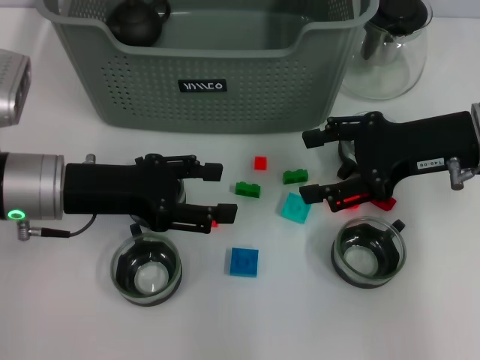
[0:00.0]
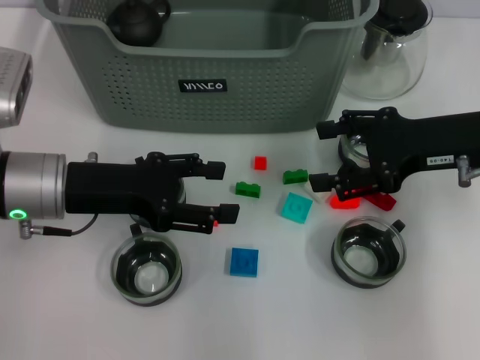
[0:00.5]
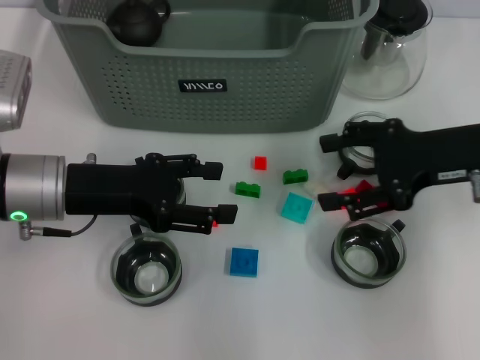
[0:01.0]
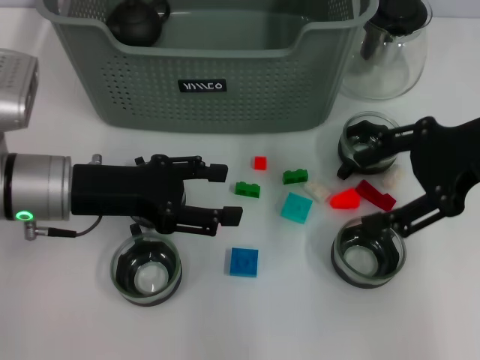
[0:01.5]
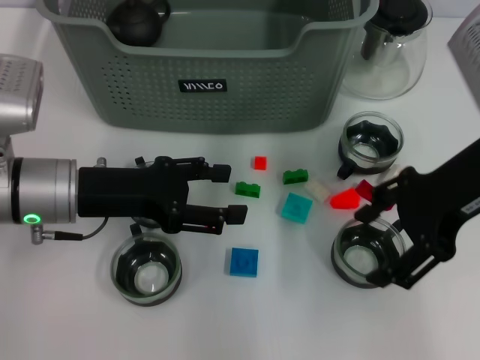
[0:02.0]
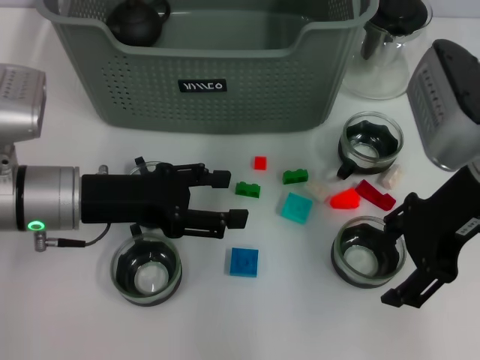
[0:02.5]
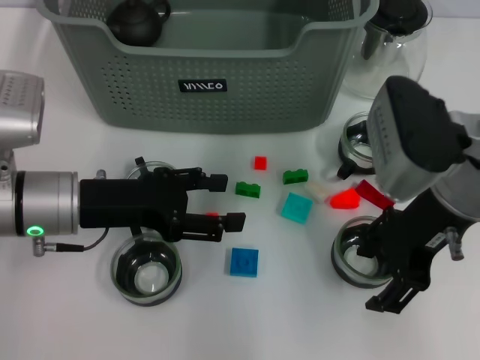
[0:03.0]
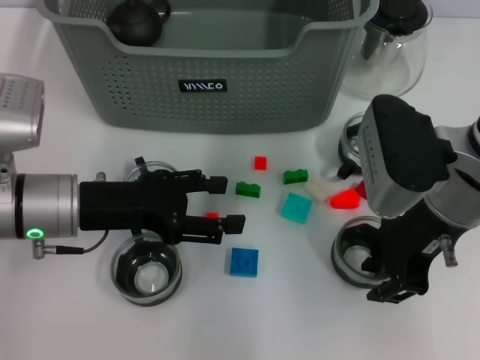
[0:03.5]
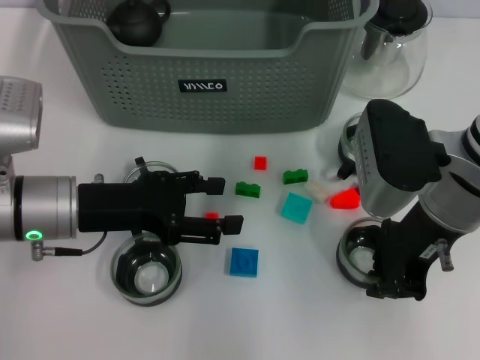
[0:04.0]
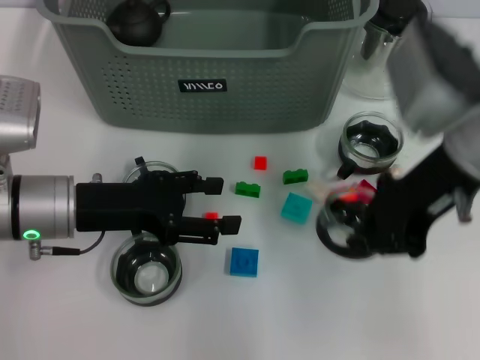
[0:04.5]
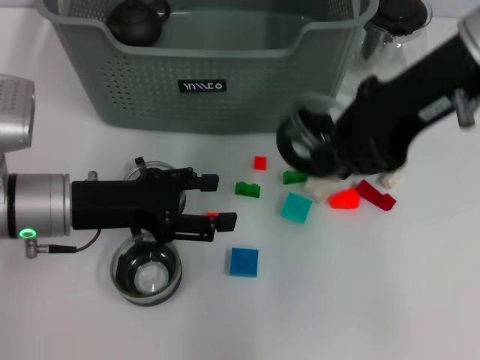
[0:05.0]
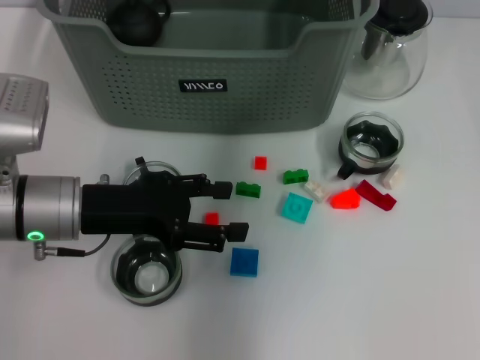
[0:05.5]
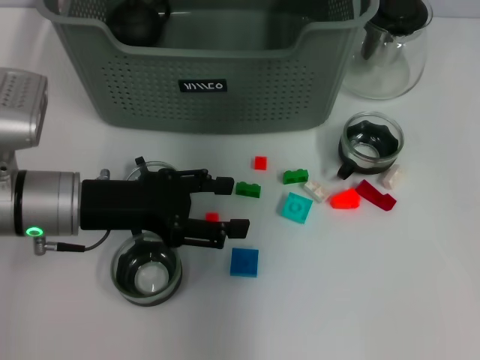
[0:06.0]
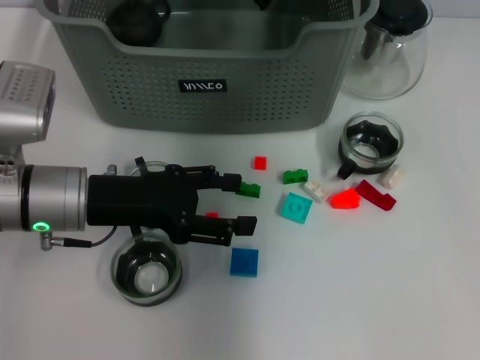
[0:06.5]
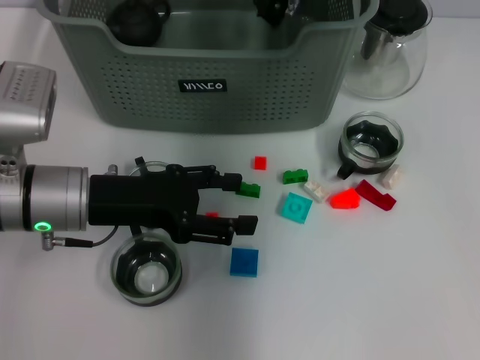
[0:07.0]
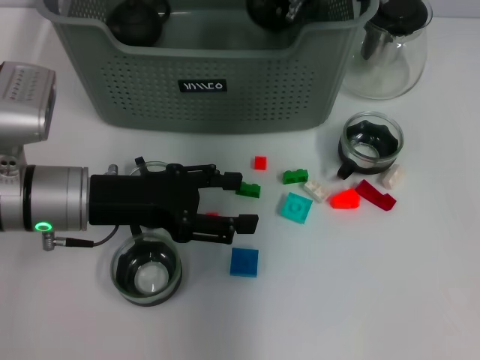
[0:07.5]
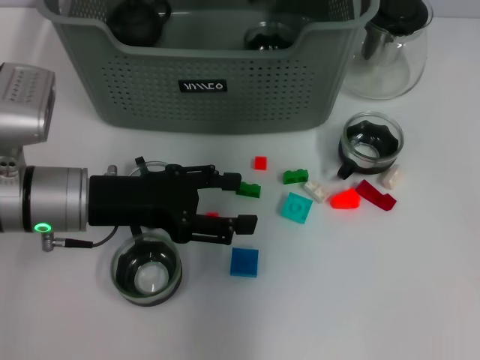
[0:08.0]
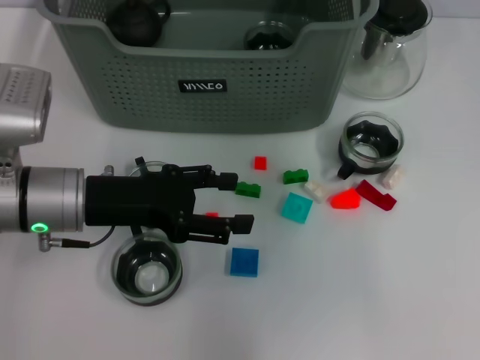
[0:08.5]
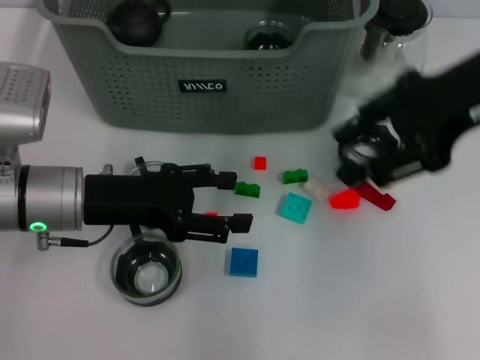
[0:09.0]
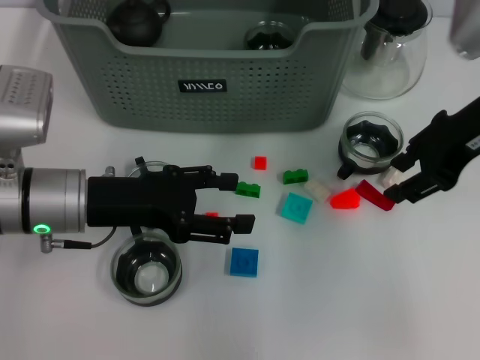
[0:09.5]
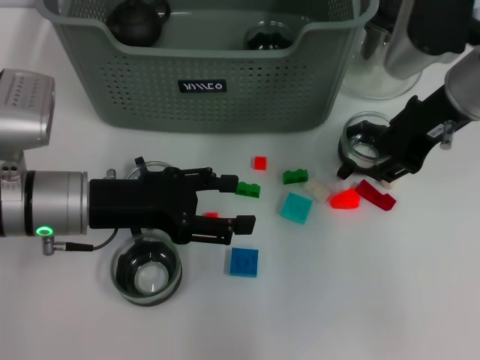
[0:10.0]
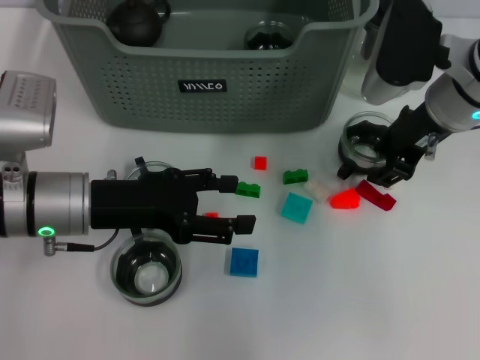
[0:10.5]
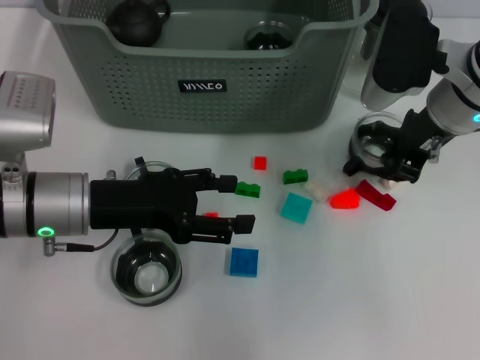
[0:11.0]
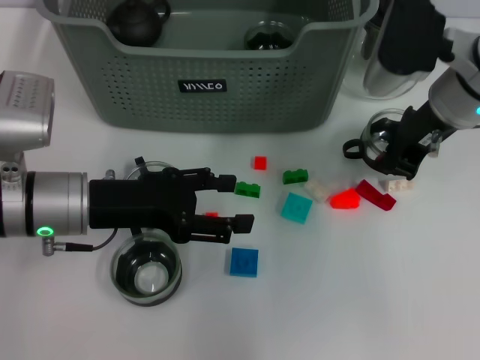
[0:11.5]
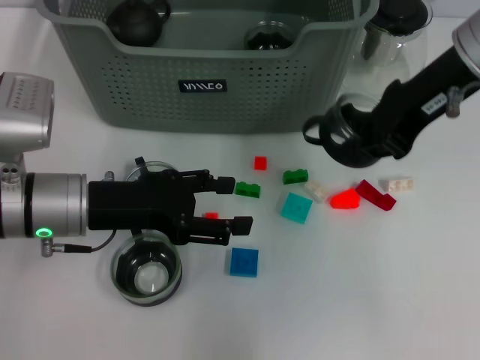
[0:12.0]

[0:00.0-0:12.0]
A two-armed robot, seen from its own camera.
Task of the whole recording: pick up the teacup on the table and place it into the storage bin, pick up the block on the table and place it into the storage bin.
Step, 0:00.0 to 0:03.5: Grasp the cup with right gripper.
Step, 0:04.0 to 0:07.5: Place the cup in the storage box with right gripper.
Step, 0:08.0 to 0:11.0: Grasp the cup with right gripper.
0:00.0 to 0:02.0: The right gripper travels upward by approximately 5 cm.
0:02.0 to 0:04.0: The right gripper shifts roughly 5 cm downward, and closes up.
0:04.0 to 0:06.0: The right gripper goes some 25 cm forward, upward and to the left.
0:06.0 to 0:08.0: The right gripper opens its fingers.
0:08.0 to 0:10.0: The right gripper goes approximately 15 cm to the right and backward.
0:10.0 to 0:12.0: The right gripper goes approximately 5 cm upward, and closes its fingers.

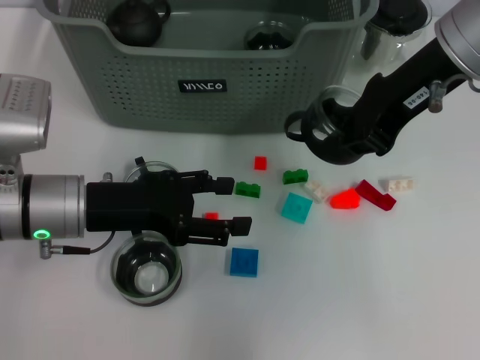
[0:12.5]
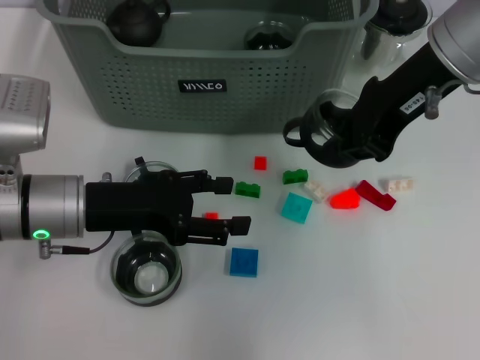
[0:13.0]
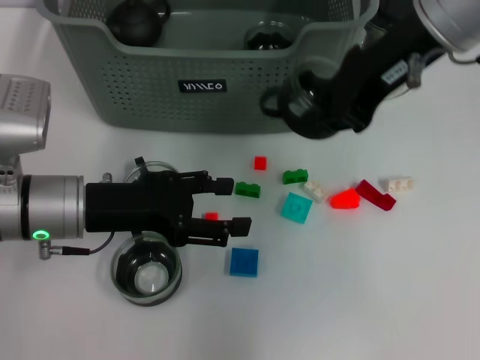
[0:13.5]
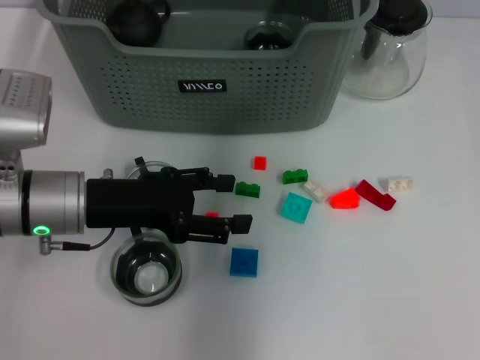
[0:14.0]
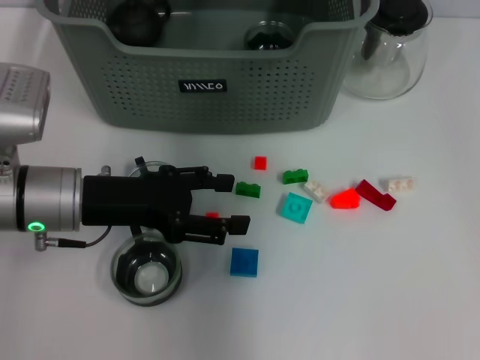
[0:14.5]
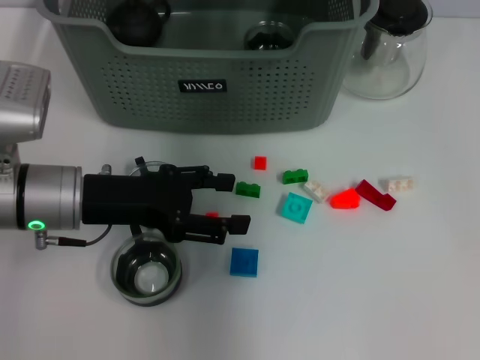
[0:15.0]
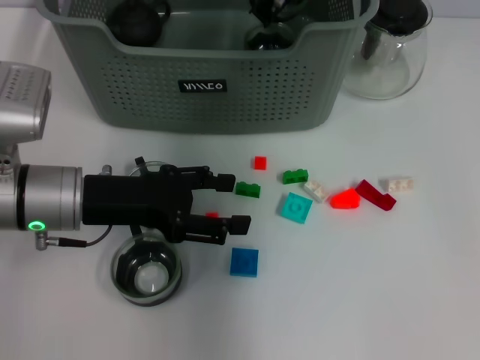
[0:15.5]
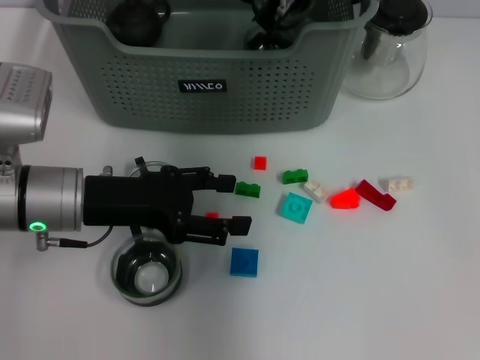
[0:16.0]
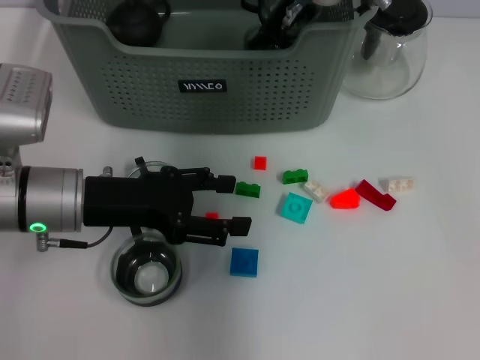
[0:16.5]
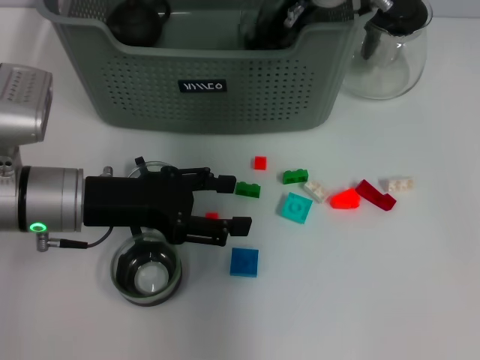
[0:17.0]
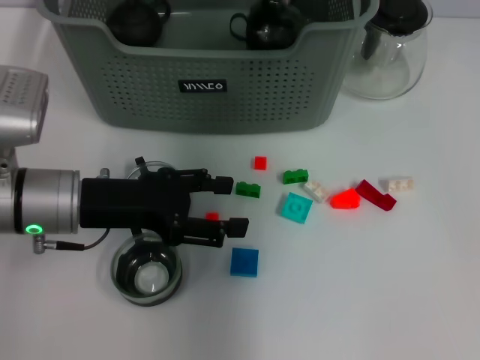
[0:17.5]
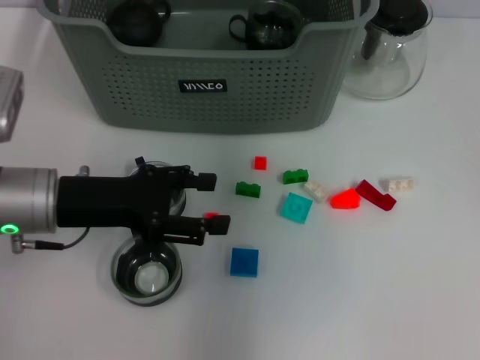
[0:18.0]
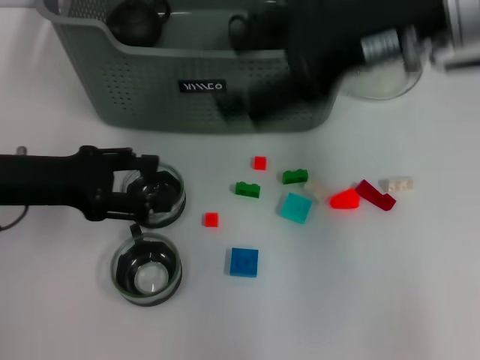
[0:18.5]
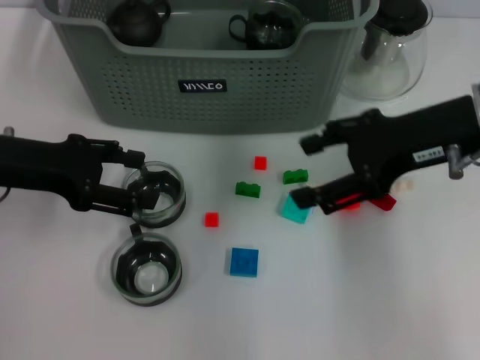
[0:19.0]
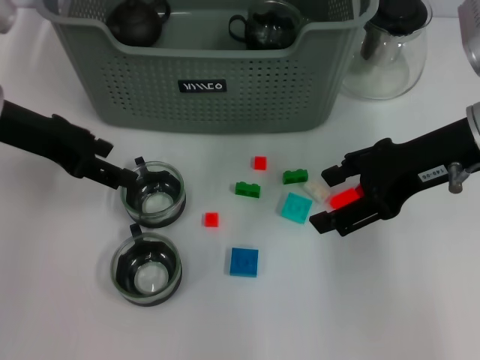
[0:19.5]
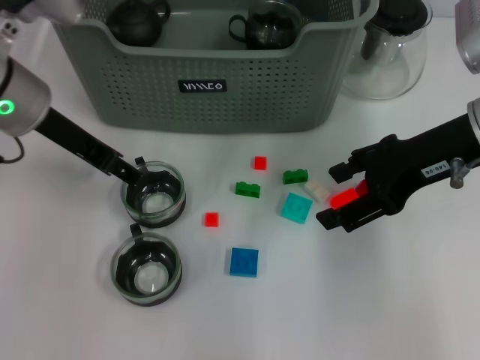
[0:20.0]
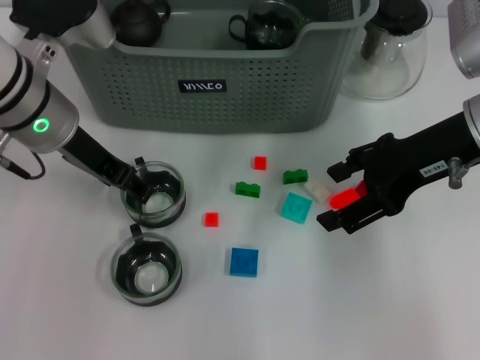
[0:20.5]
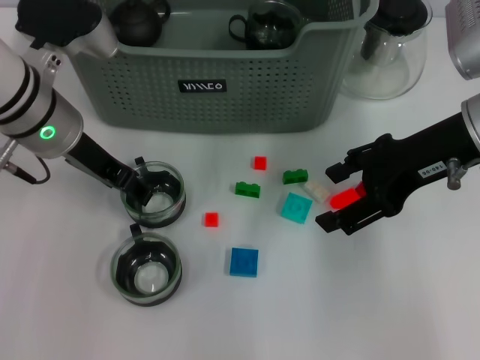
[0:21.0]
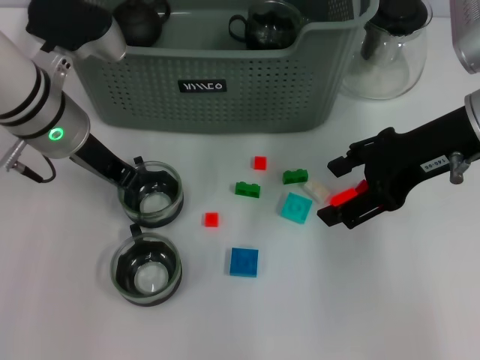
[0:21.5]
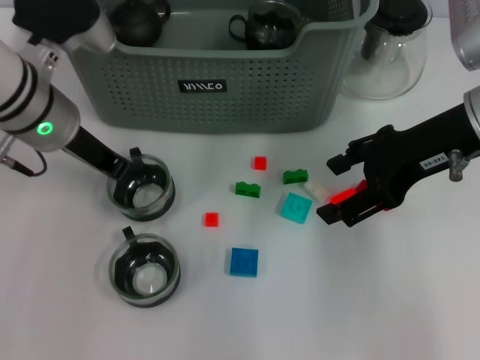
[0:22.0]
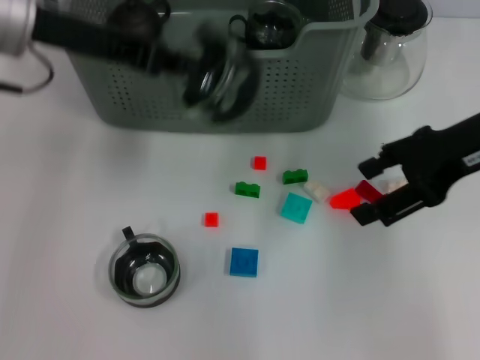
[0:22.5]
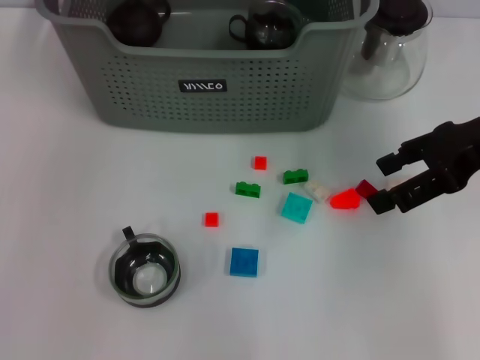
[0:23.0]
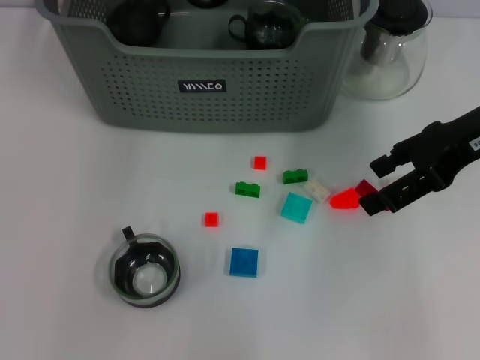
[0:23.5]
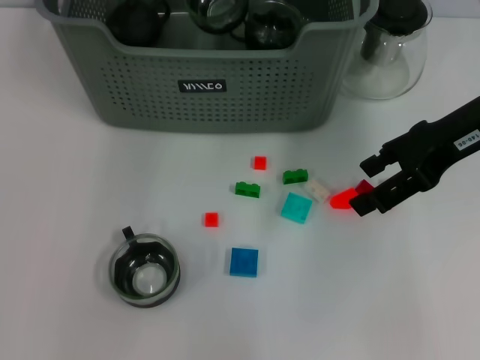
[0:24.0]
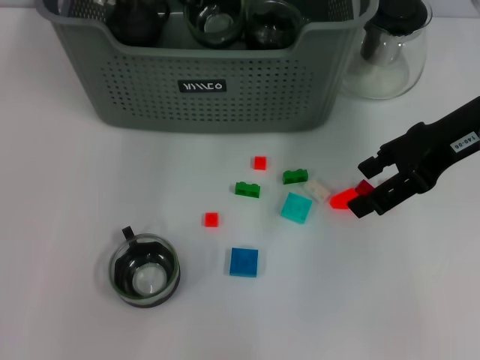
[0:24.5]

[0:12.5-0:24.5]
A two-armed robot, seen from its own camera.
Task of the whole recording: pick up the teacup on the table and place it into the storage bin, pick up the block on the table and place it into the storage bin.
Step, 0:12.5 to 0:17.0: Place the cup in the storage box with right gripper.
Step, 0:17.5 to 0:21.5: Grasp the cup with left gripper.
0:12.5 to 0:14.5: The right gripper heads forward, to the left and upward, covering some 15 cm.
0:14.5 to 0:16.5: The right gripper shifts some 10 cm downward.
0:16.5 to 0:18.5: The right gripper is displaced backward, to the right and upward by roughly 20 cm, and opens its fingers, while the left gripper travels to the left by roughly 5 cm.
0:18.5 to 0:20.5: The left gripper moves to the right and forward, about 10 cm. Meanwhile the right gripper is displaced downward and to the right by some 10 cm.
0:20.5 to 0:22.5: The left gripper travels upward by some 10 cm, and closes its fingers.
0:22.5 to 0:24.5: The left gripper travels forward and to the right by some 15 cm.

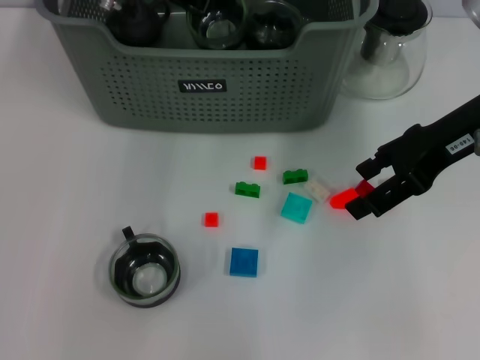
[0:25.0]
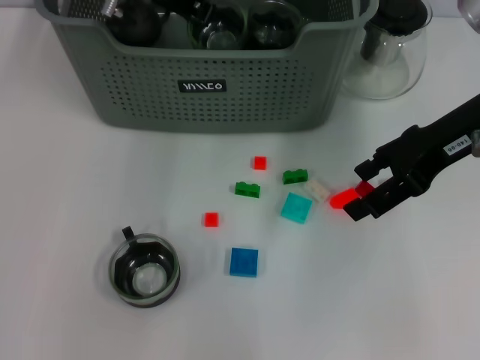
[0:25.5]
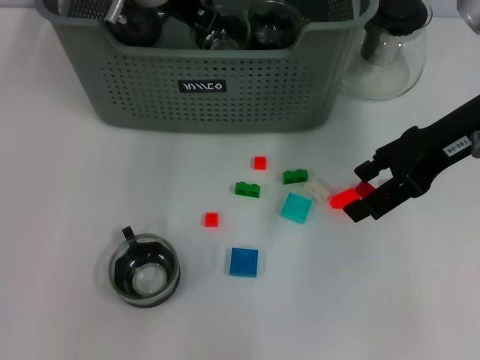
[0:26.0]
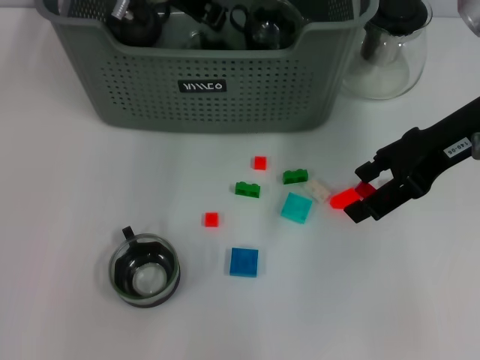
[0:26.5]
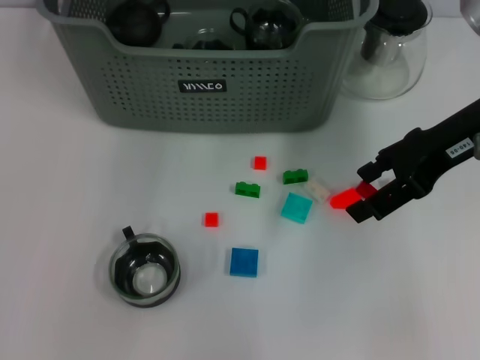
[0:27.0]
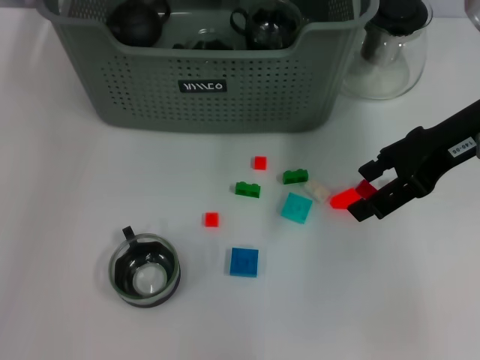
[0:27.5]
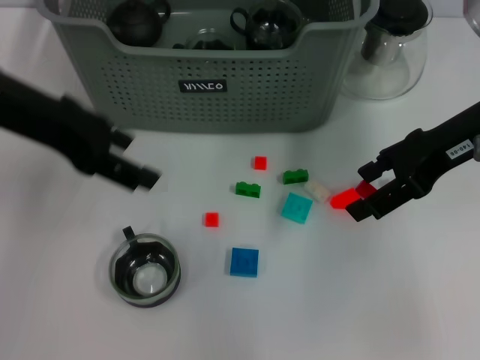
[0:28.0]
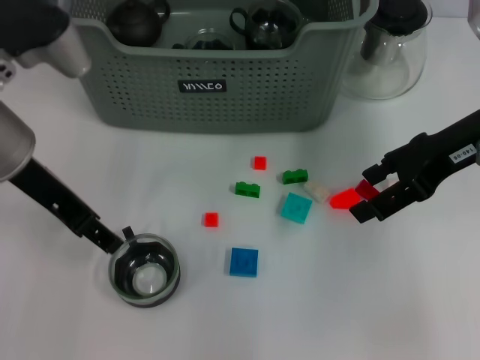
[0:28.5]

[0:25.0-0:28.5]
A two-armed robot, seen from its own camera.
Task of the whole recording: pick up the teacup on the table and place it into the storage bin, pick up the block on the table and place it into the storage bin.
0:25.0 to 0:27.0: The left gripper moves upward, some 5 cm, and opens its fingers.
0:27.0 to 0:28.5: The left gripper is displaced backward, downward and to the left by some 20 cm, and opens its fingers.
